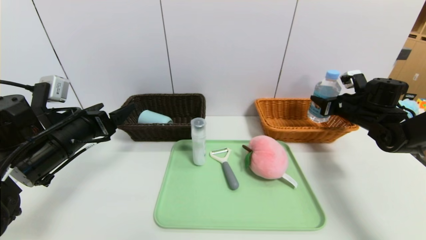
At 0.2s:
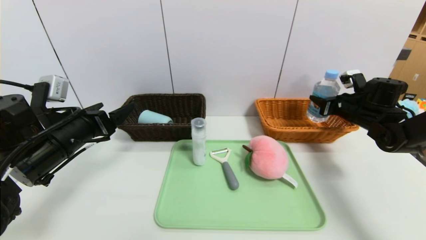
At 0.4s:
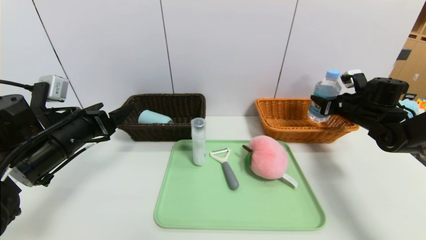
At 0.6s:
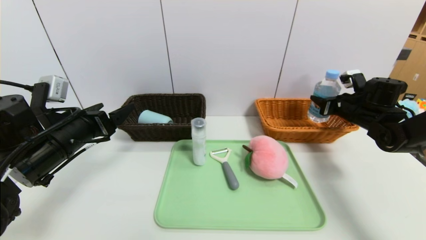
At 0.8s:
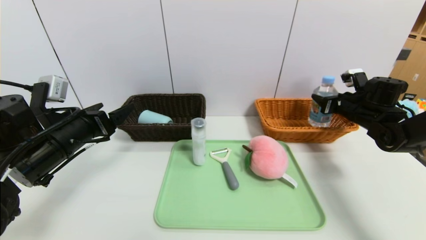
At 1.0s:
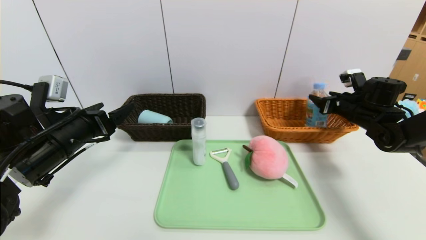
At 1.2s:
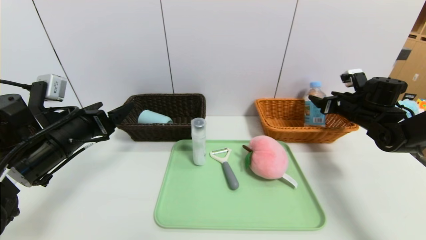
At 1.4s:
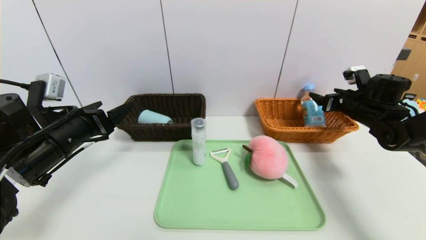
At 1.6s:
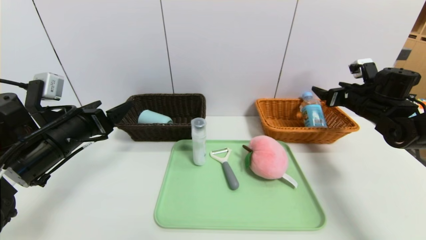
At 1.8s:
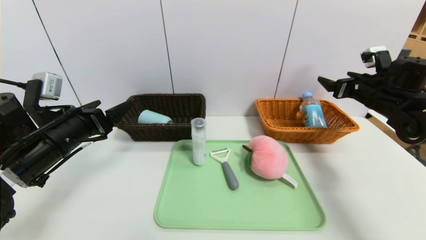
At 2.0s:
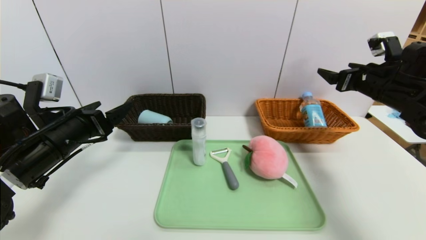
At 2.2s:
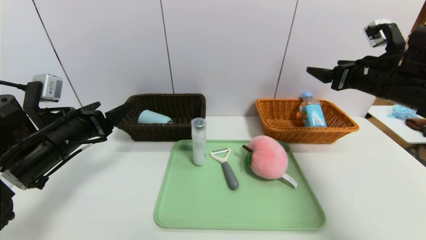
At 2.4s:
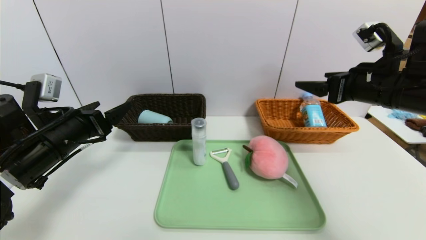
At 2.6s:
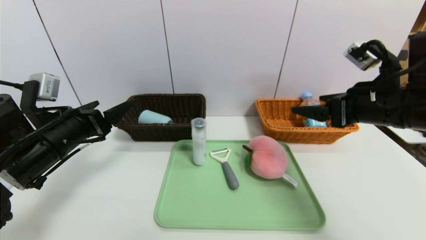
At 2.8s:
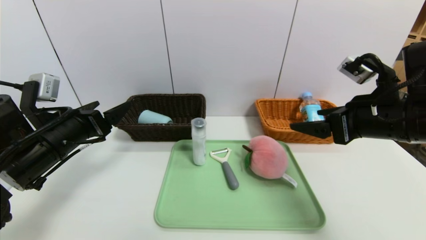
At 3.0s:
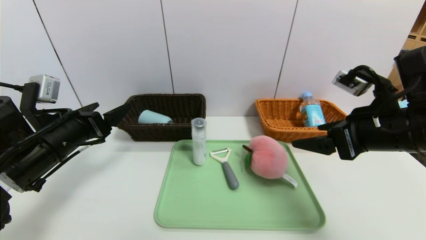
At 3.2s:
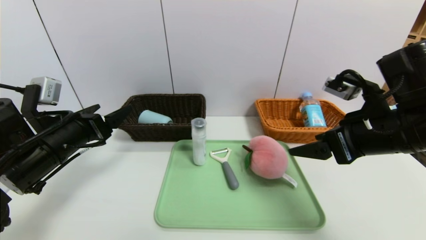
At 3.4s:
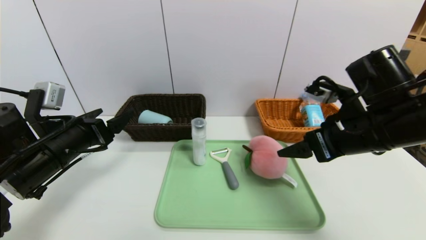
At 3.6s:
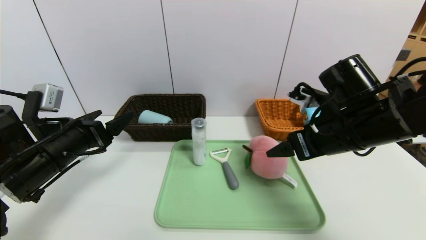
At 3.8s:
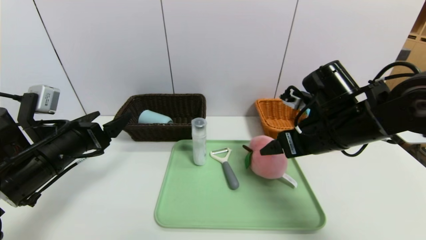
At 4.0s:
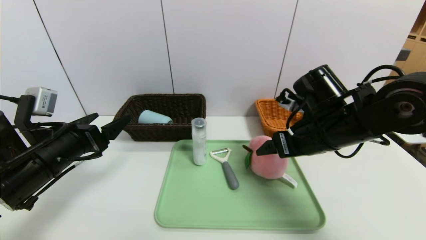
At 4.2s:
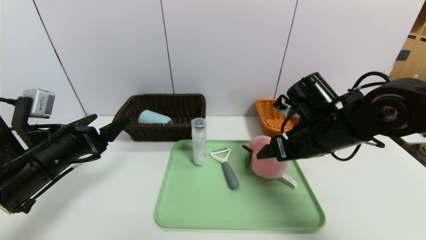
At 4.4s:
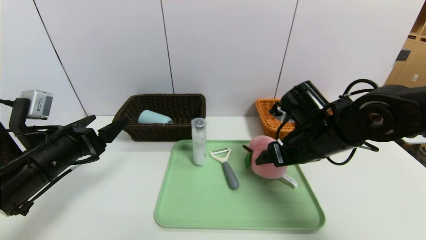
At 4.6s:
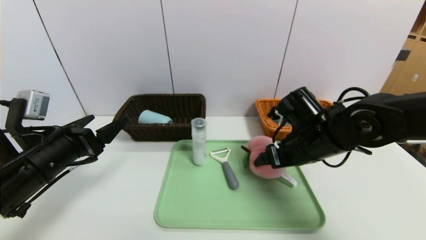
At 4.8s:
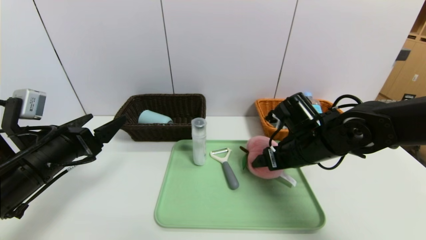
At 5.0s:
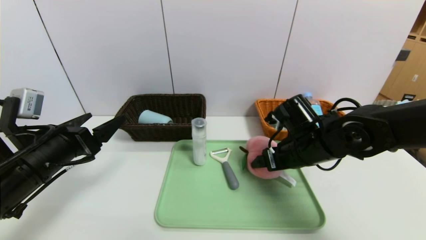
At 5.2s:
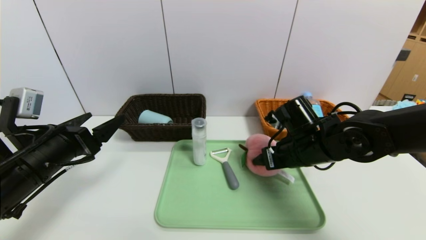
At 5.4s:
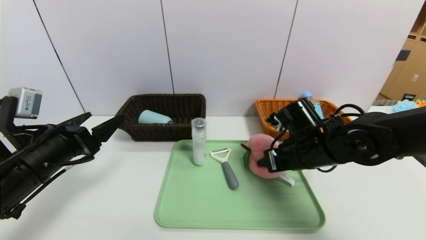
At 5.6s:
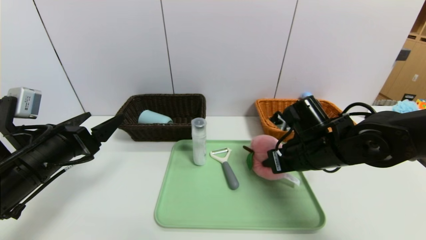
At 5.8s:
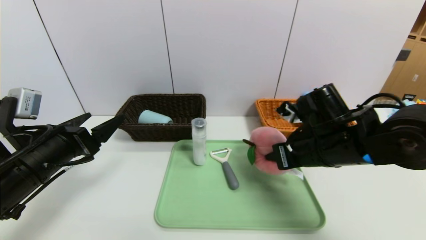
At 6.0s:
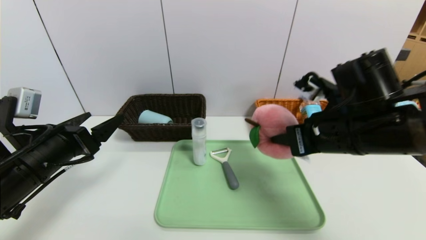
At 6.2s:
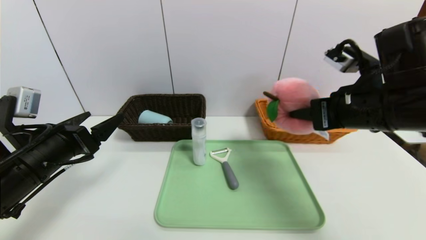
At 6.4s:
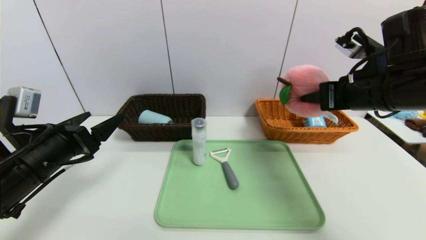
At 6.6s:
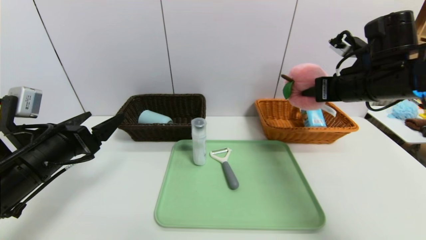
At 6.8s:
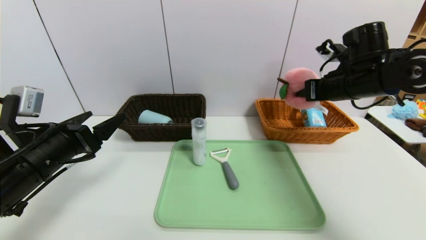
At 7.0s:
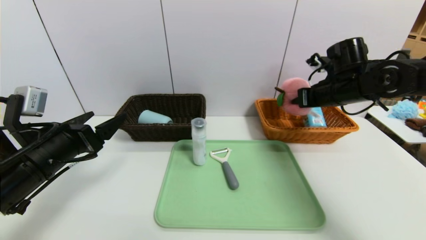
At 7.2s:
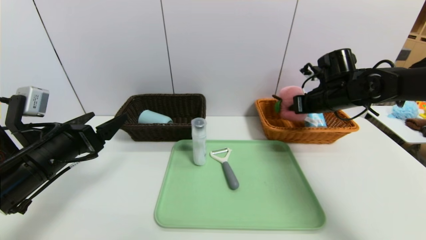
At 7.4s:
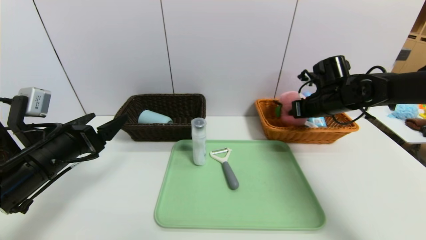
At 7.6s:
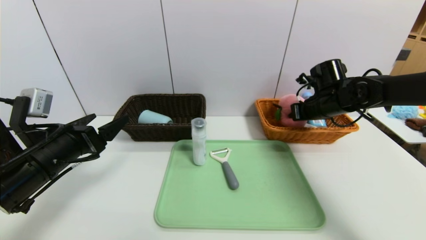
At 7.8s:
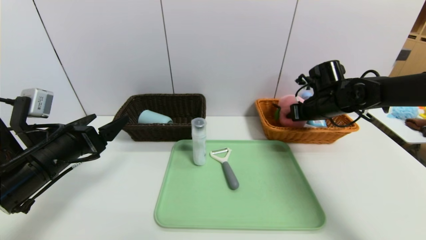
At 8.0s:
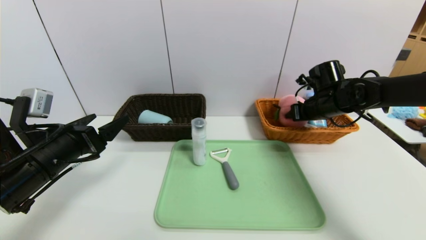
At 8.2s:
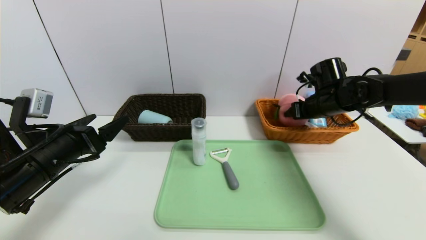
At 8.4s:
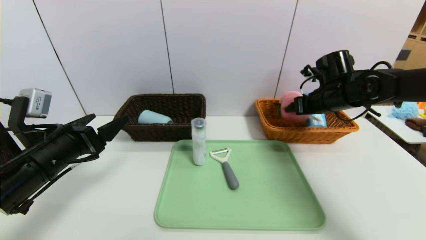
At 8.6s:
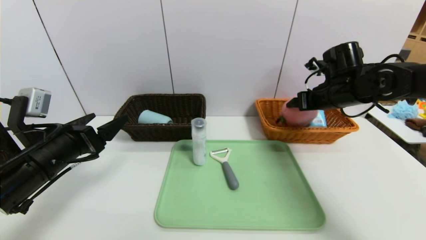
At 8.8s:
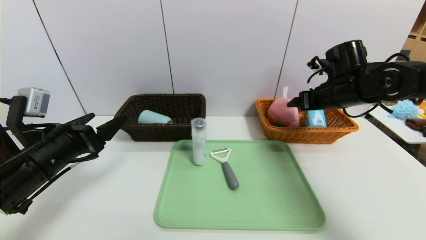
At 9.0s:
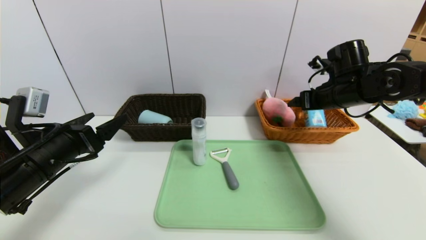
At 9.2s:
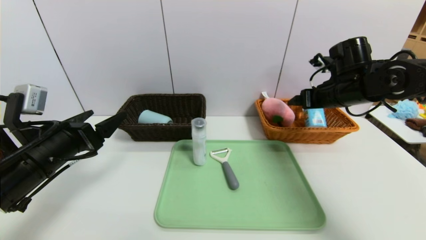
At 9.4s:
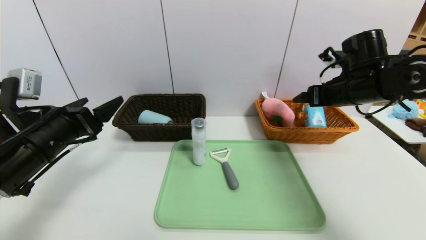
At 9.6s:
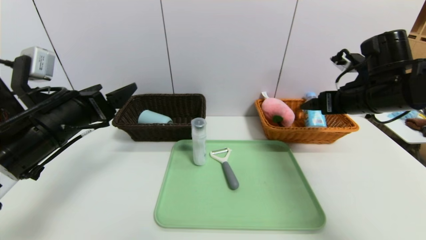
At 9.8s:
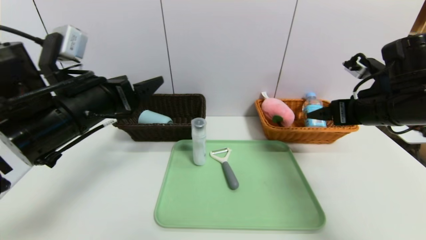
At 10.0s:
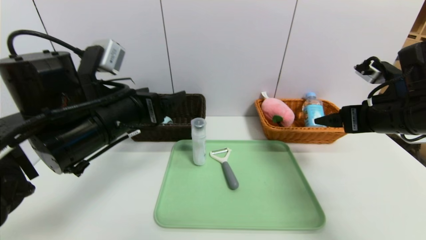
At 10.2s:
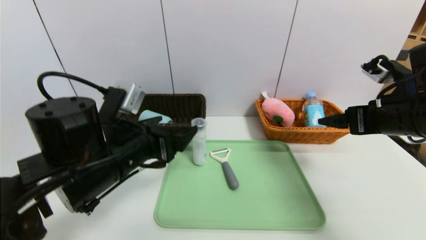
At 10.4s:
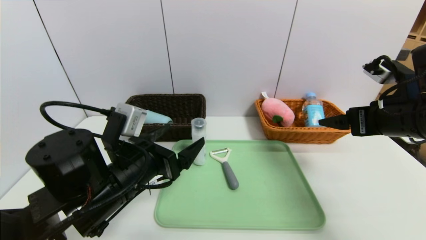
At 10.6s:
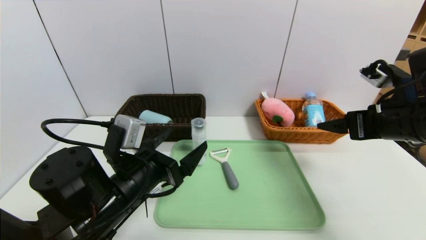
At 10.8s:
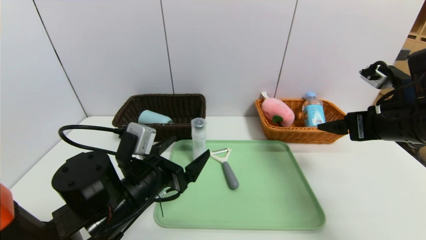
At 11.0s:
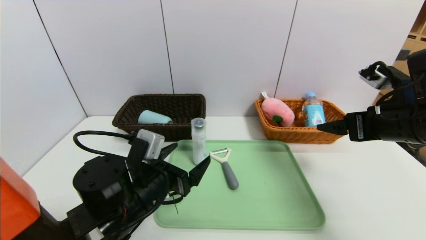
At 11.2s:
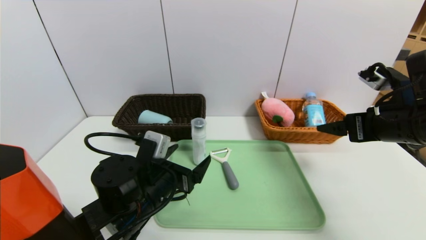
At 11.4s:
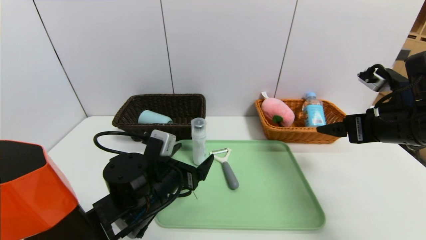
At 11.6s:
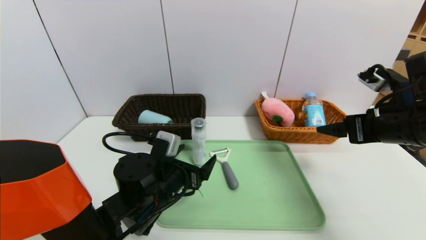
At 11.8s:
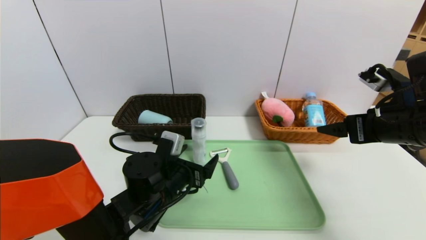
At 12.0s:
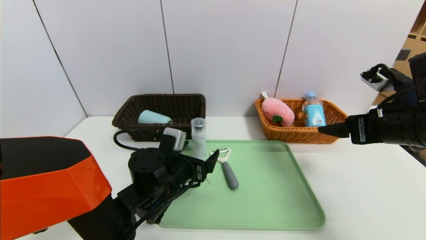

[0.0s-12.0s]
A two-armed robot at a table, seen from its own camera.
Task of the whole recording: place the food in the right basket with the right gripper, and place the non food items in the left basket with the left gripper.
Step, 1.6s to 9.2s: Grasp the peach doll and put it in the right basket.
0.0s to 1.6s: The right gripper opens.
1.6s to 3.0s: The right gripper is displaced backward and to the left by some 20 cm.
3.0s to 4.4s: The right gripper travels to the left, downward and forward by about 10 cm.
4.4s to 6.0s: The right gripper travels upward and backward by approximately 5 cm, and closes.
6.0s to 7.6s: The right gripper travels forward and to the right by about 20 cm.
7.6s to 9.0s: The right gripper moves some 5 cm, and opens its fingers.
9.0s to 10.4s: The right gripper heads backward, covering some 15 cm, while the left gripper heads to the right, covering approximately 10 cm.
10.4s to 12.0s: The left gripper travels downward and forward by about 10 cm.

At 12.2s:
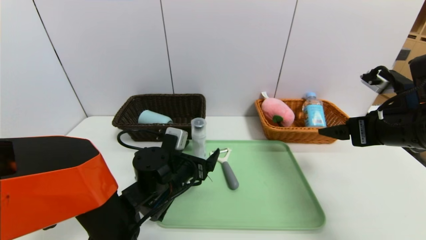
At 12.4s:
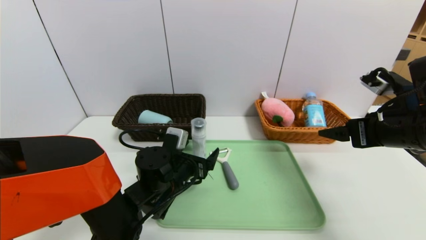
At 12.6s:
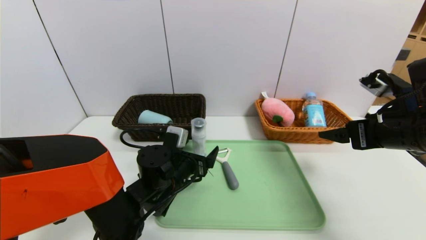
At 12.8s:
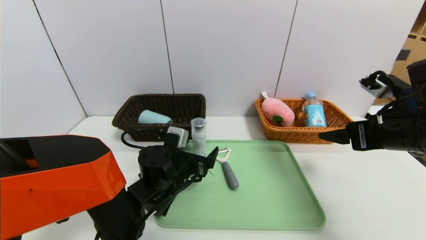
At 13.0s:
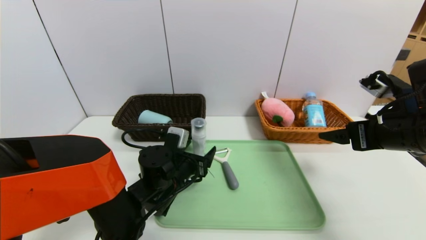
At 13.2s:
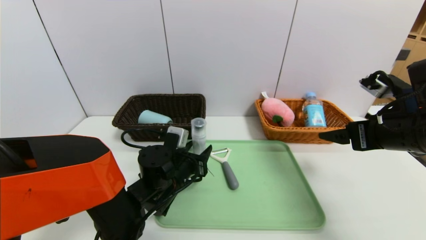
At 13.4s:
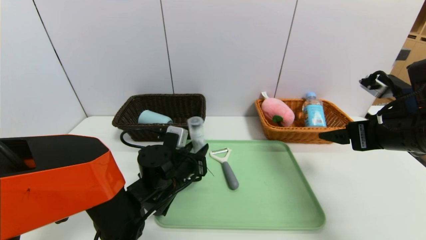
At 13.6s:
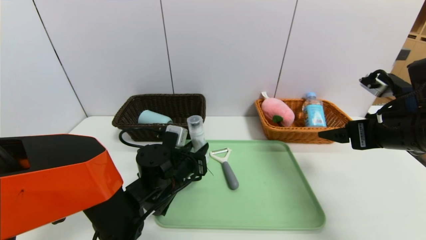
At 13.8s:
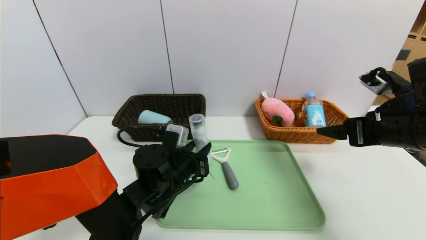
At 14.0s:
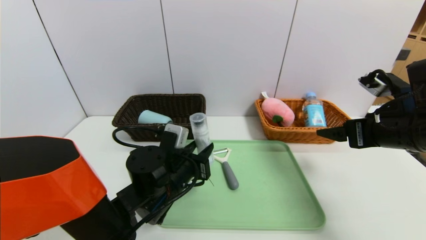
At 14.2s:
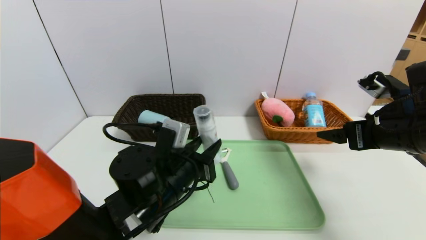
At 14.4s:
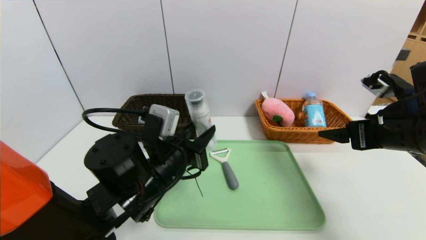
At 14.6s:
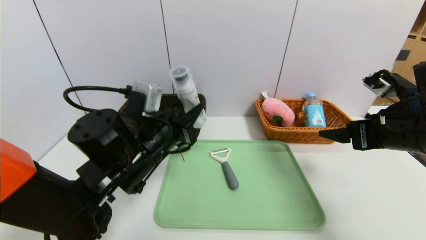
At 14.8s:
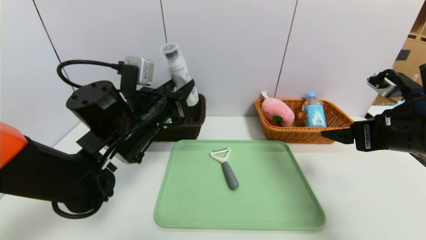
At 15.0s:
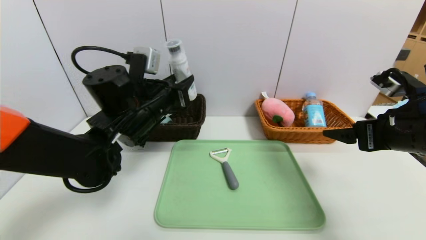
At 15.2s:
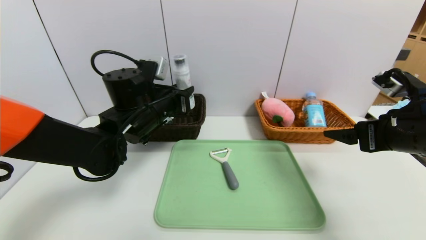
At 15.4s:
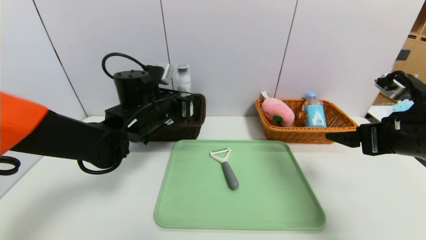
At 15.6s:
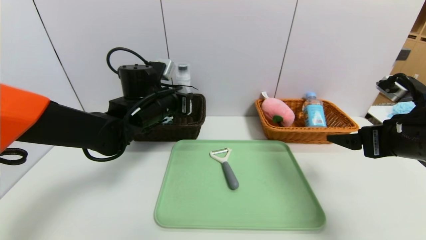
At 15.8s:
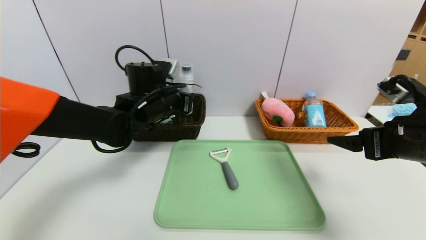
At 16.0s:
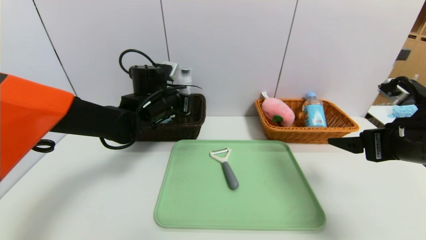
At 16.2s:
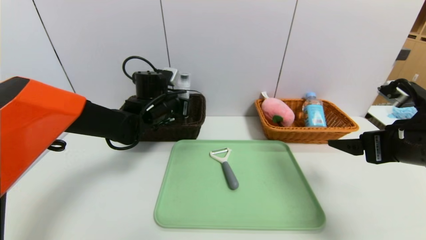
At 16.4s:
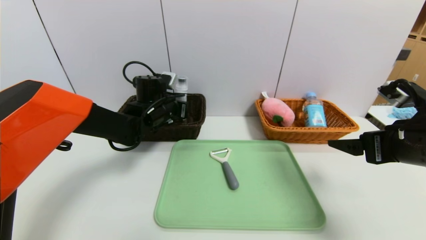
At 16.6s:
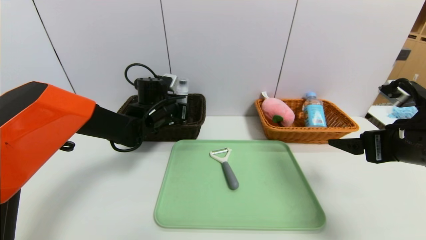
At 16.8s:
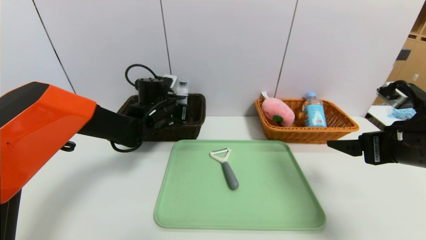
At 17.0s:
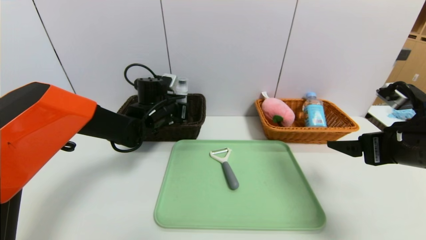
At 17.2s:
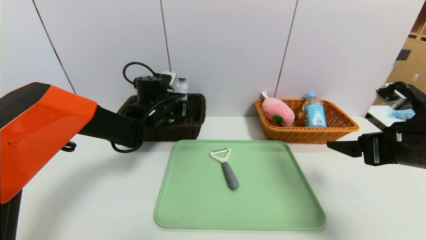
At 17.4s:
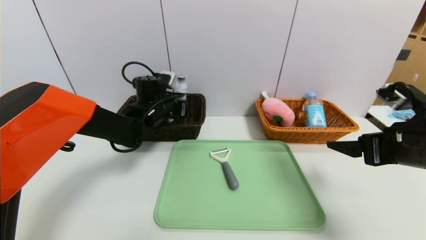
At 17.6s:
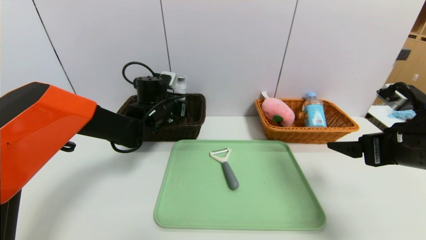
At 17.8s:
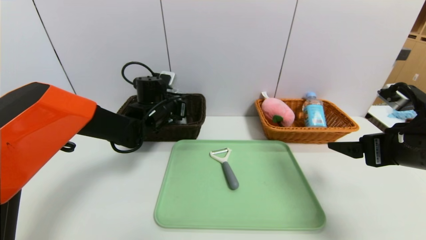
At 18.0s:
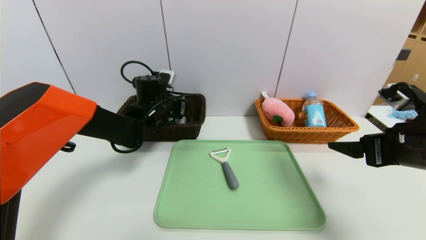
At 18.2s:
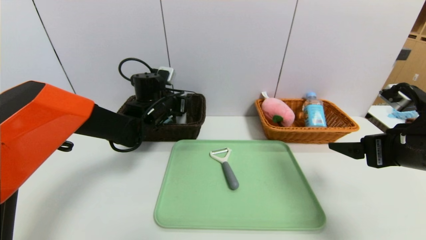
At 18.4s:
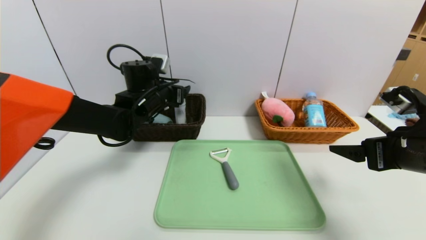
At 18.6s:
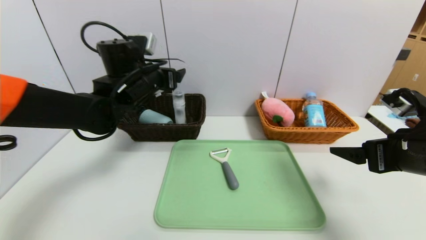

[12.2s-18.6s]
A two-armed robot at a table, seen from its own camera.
Task of the whole recording: place the food in the right basket with the right gripper, and place the non food items in the left basket with the left gripper.
Step, 12.2s to 18.4s: Grasp the washing liquid and put it in the left basket.
12.2s to 13.8s: The left gripper closes up.
13.8s to 15.4s: The left gripper travels upward and forward by roughly 15 cm.
15.4s to 17.0s: The left gripper heads forward, covering roughly 5 cm.
17.0s to 18.6s: The left gripper is displaced upward and backward by roughly 10 cm, and opens.
